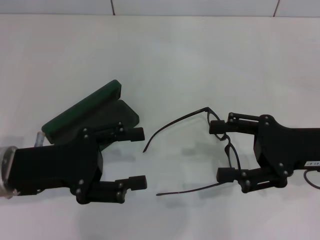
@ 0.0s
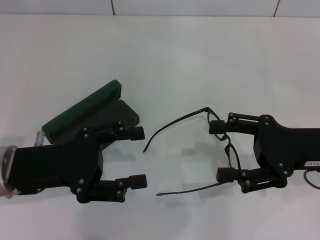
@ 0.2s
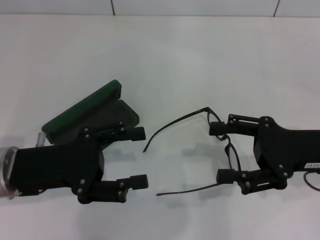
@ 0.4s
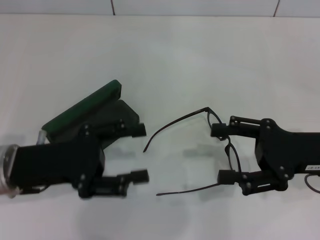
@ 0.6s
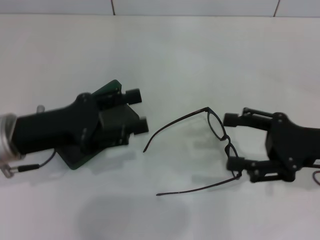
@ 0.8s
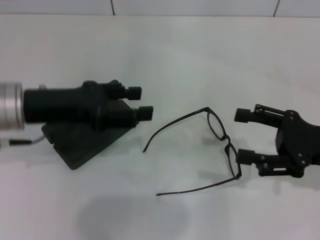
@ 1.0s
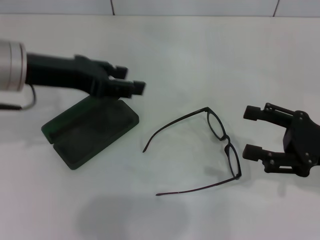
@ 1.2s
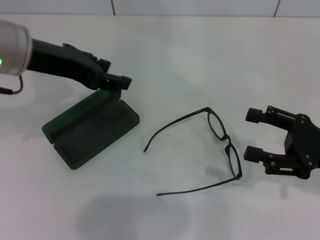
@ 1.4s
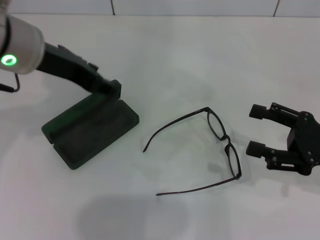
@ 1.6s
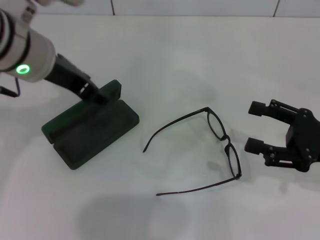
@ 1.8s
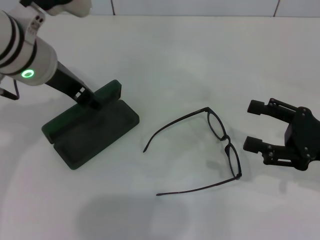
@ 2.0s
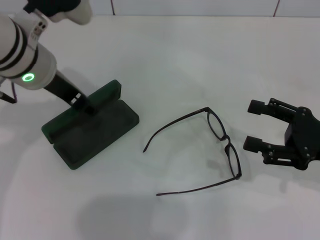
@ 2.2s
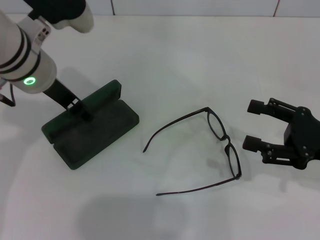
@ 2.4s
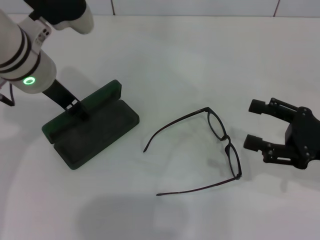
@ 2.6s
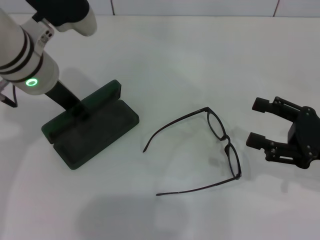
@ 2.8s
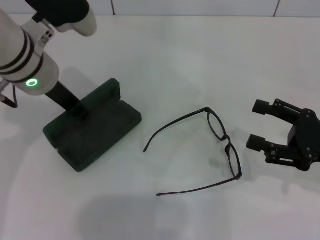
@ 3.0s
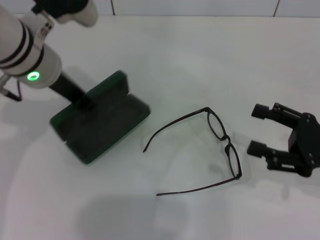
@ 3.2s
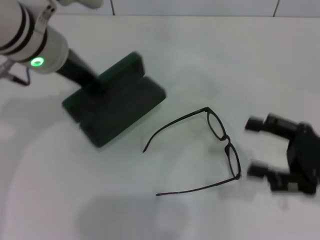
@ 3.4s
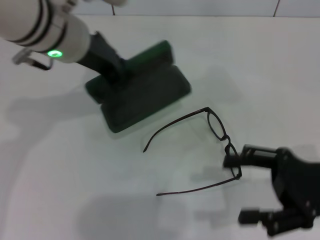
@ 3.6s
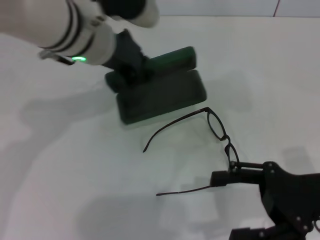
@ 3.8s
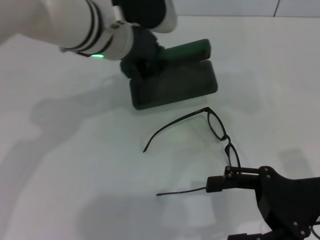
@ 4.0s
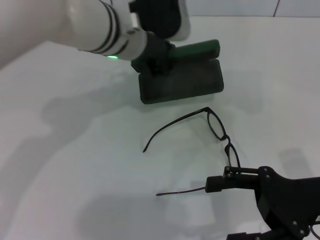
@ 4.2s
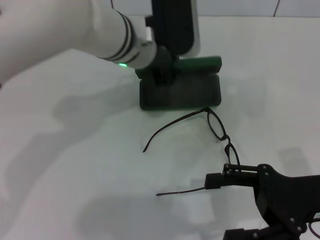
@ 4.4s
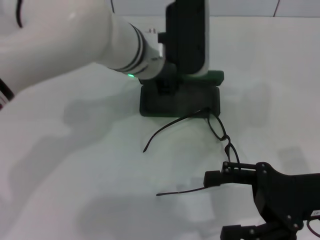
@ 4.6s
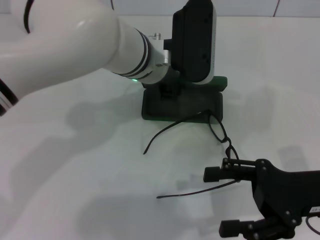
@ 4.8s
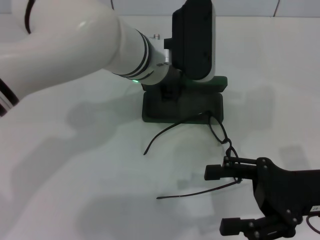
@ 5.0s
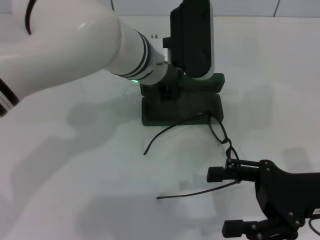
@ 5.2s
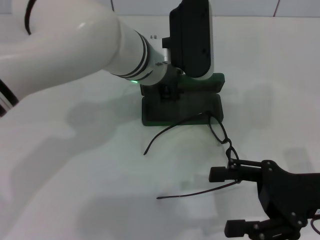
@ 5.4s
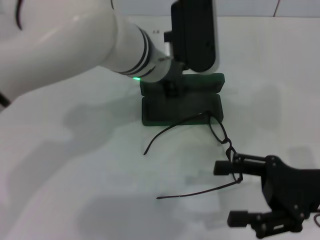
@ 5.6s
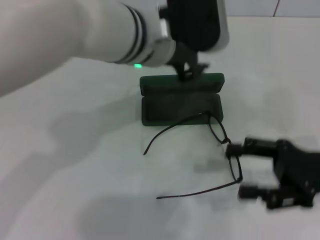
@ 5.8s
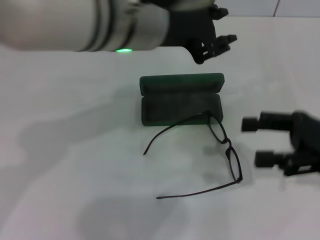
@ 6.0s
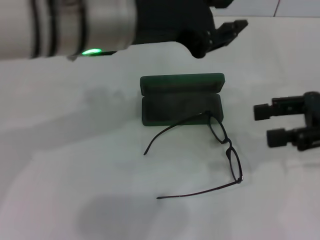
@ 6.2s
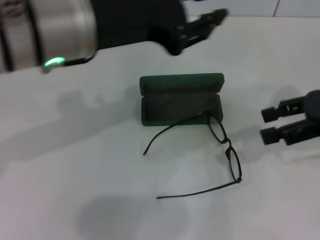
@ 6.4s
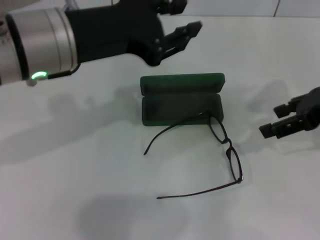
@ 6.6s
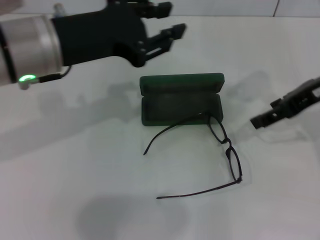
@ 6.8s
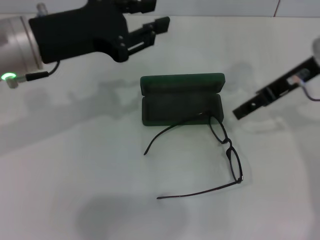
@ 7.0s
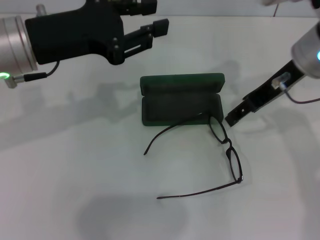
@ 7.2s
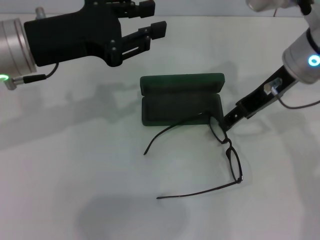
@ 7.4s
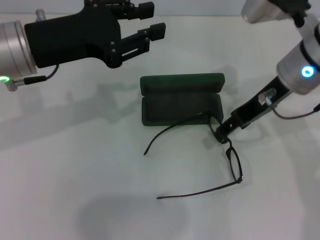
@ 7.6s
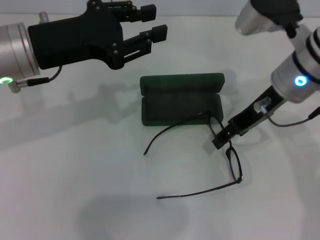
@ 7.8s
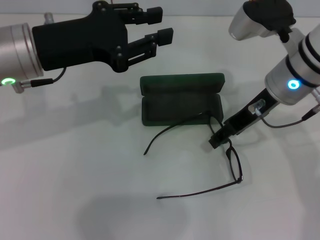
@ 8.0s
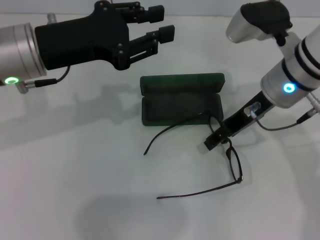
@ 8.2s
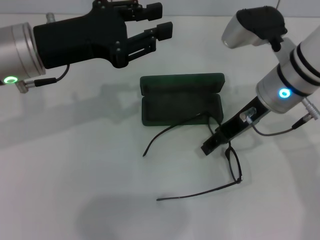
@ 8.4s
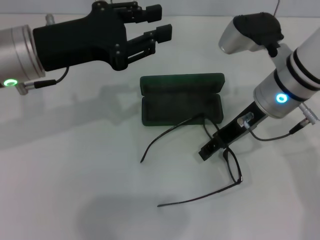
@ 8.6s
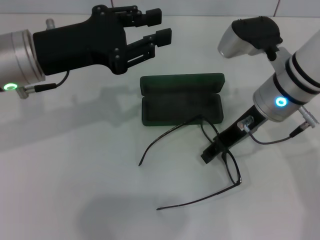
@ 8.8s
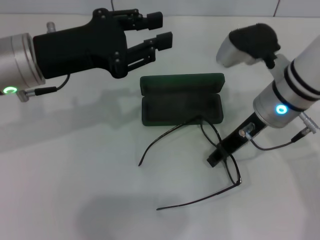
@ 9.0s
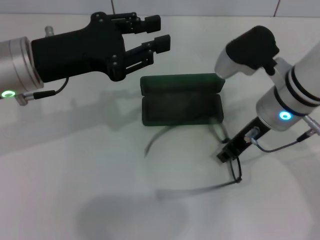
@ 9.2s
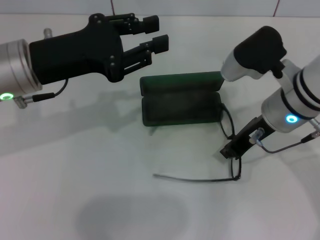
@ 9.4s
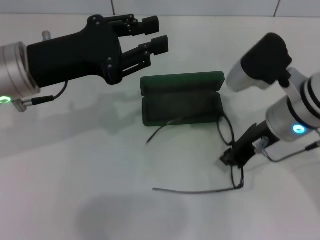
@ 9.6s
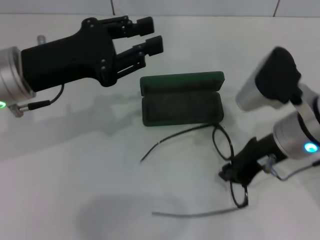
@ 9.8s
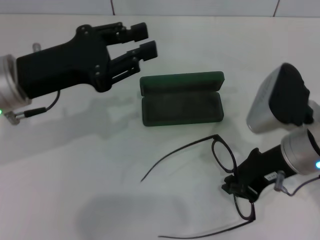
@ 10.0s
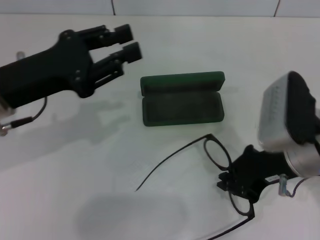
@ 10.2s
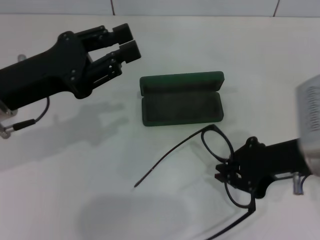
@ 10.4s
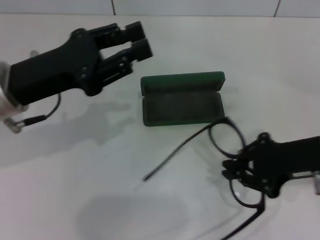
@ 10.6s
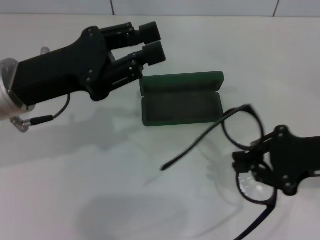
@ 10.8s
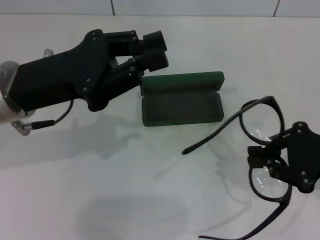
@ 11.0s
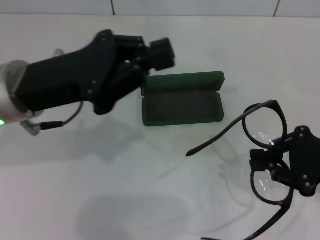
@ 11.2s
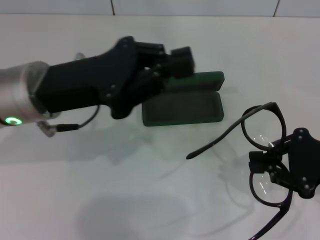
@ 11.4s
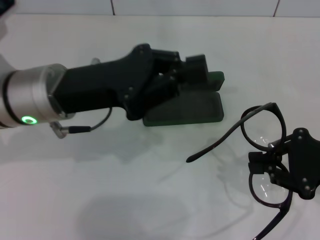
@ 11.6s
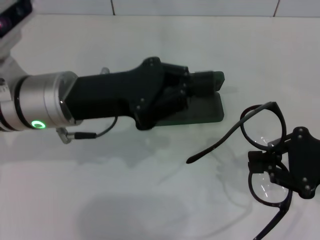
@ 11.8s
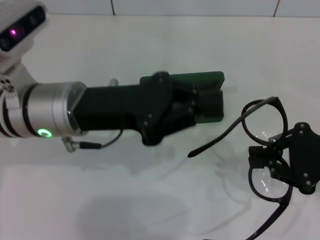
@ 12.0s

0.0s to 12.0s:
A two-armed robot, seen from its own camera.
Step, 0.0s to 2.6s: Grab the glasses case with your left hand.
Step, 2.8s to 5.6s: Place the glasses case in the center of the table with your left hand.
0.0s to 1.6s: The right gripper moves about 5 cm, while the left gripper moves upward, forward and to the right, roughly 20 cm.
1.6s to 3.0s: The left gripper goes approximately 5 cm downward, and closes its fingers.
3.0s to 4.4s: The left gripper goes some 10 cm to the right. The right gripper is displaced to the left by about 5 cm.
4.4s to 6.0s: The right gripper changes place by approximately 10 cm, while the left gripper is displaced upward and backward by some 10 cm.
6.0s to 7.6s: The right gripper is displaced to the left, forward and upward by about 15 cm. The left gripper travels to the left and downward by about 15 cm.
7.6s to 9.0s: The right gripper moves some 5 cm.
9.0s to 10.4s: The right gripper heads backward and to the right, covering approximately 10 cm, and closes its fingers; the left gripper ends up some 5 cm from where it was.
10.4s to 12.0s: Both grippers travel together to the right, roughly 10 cm. The left gripper closes up.

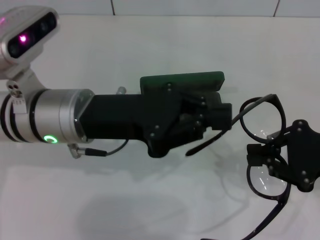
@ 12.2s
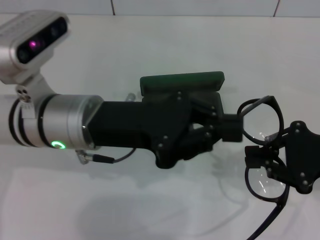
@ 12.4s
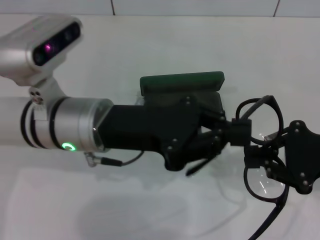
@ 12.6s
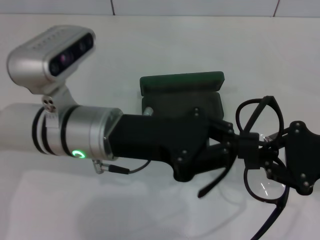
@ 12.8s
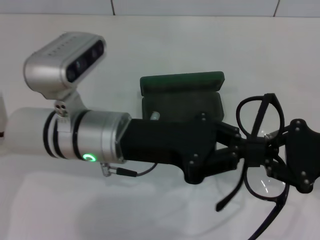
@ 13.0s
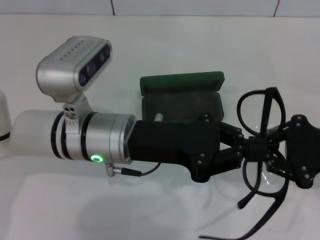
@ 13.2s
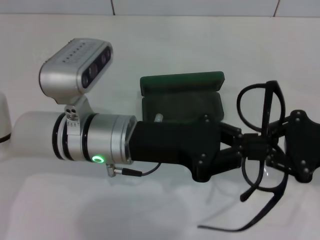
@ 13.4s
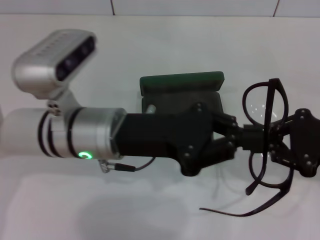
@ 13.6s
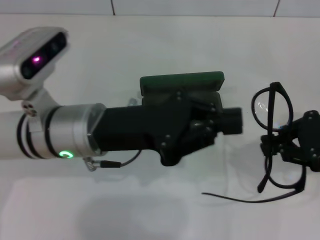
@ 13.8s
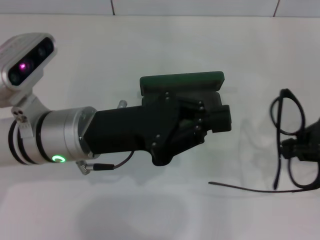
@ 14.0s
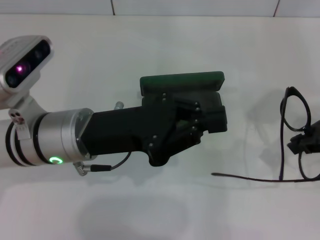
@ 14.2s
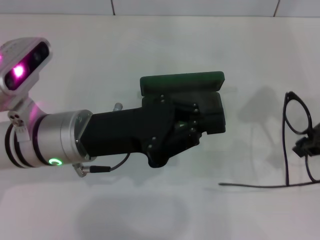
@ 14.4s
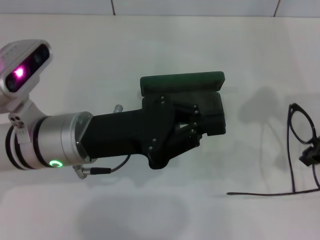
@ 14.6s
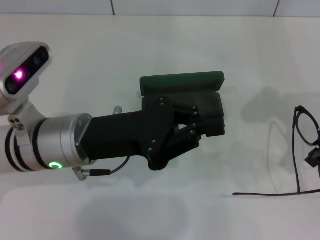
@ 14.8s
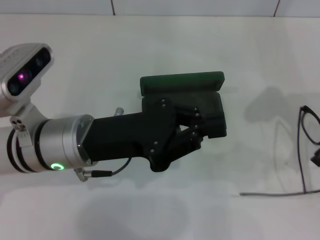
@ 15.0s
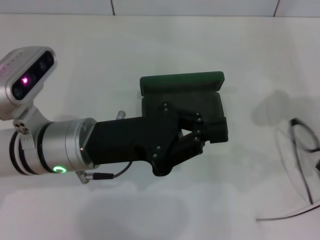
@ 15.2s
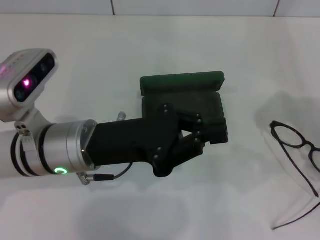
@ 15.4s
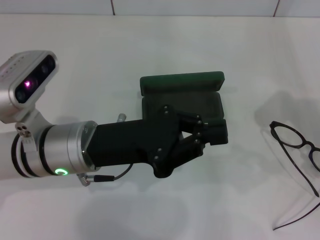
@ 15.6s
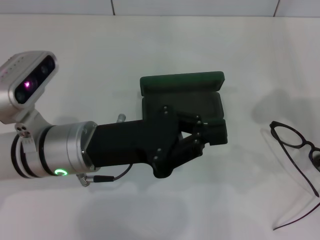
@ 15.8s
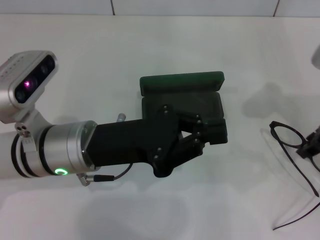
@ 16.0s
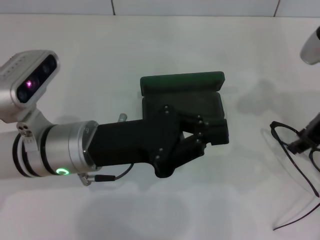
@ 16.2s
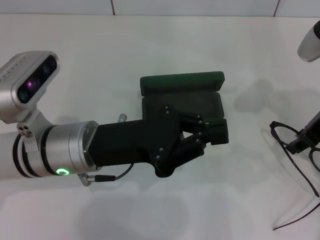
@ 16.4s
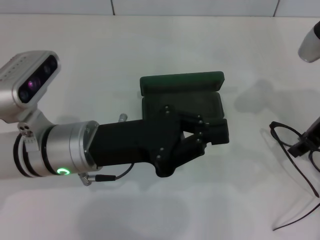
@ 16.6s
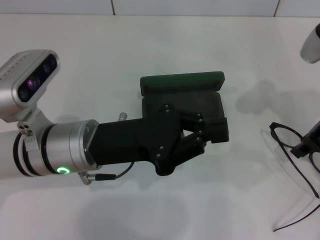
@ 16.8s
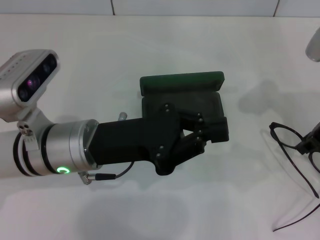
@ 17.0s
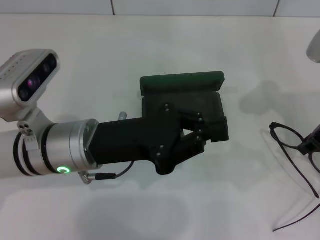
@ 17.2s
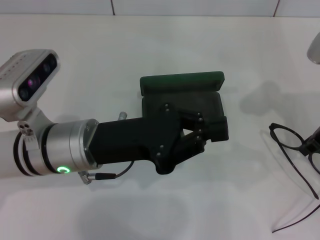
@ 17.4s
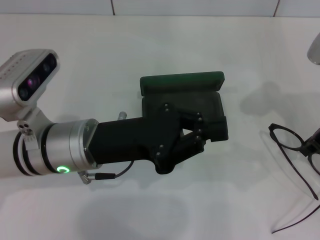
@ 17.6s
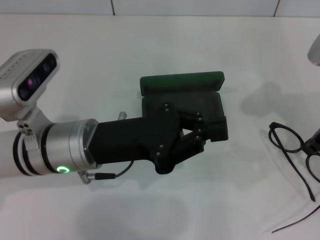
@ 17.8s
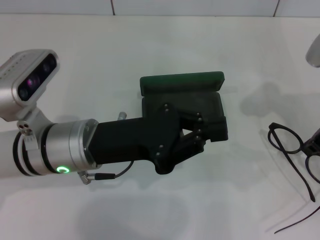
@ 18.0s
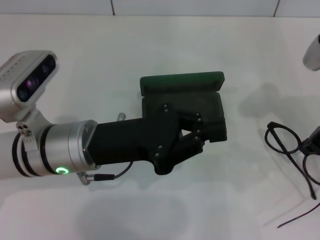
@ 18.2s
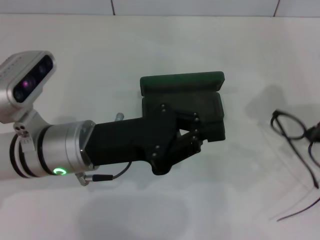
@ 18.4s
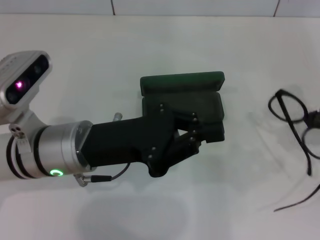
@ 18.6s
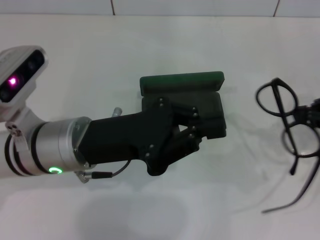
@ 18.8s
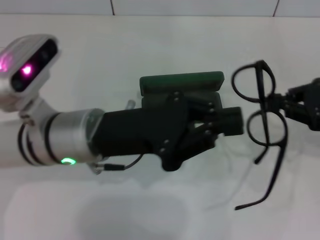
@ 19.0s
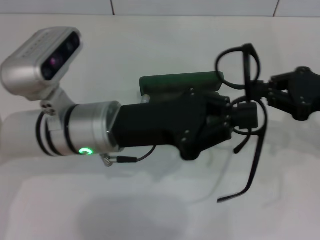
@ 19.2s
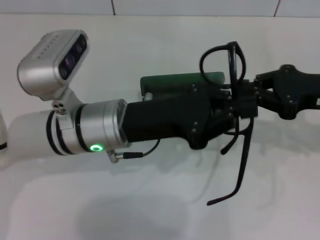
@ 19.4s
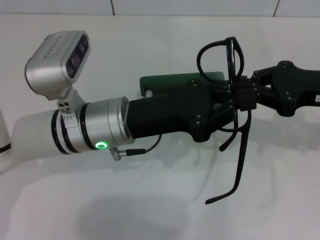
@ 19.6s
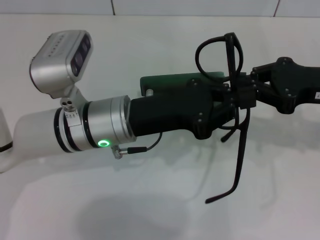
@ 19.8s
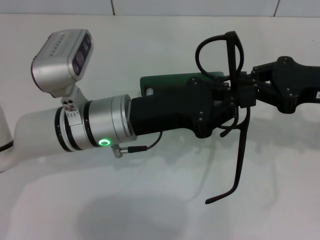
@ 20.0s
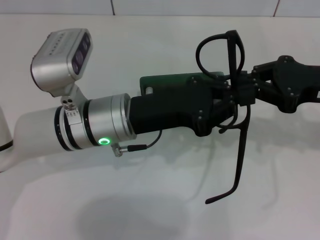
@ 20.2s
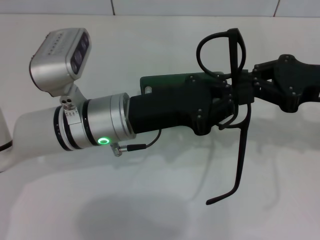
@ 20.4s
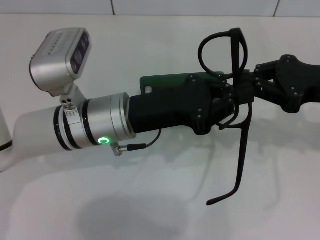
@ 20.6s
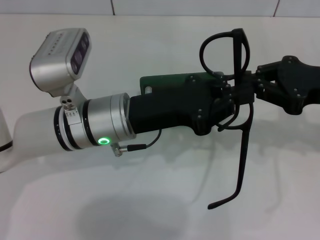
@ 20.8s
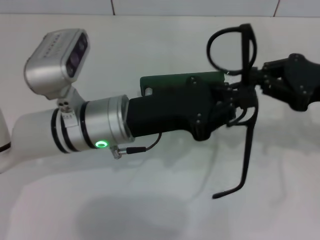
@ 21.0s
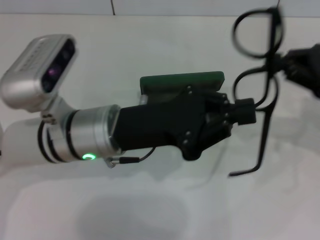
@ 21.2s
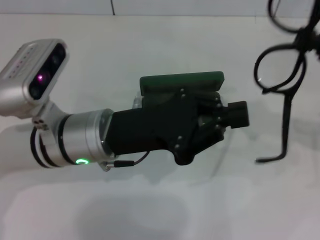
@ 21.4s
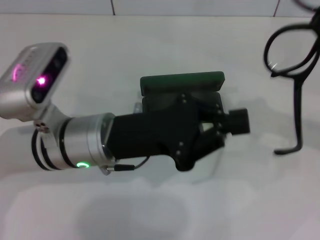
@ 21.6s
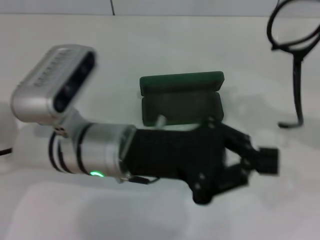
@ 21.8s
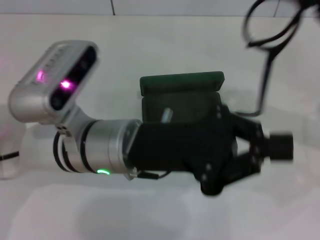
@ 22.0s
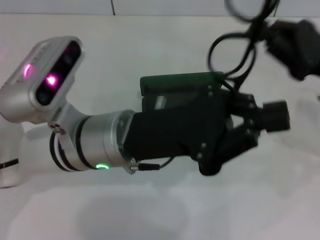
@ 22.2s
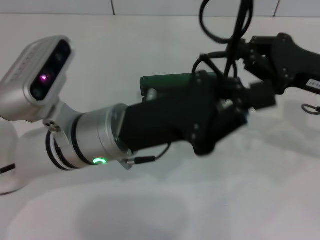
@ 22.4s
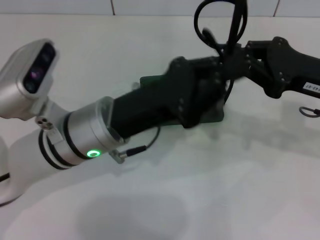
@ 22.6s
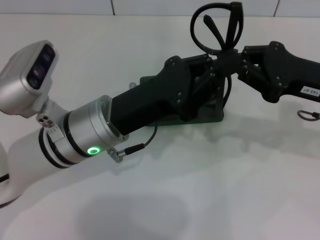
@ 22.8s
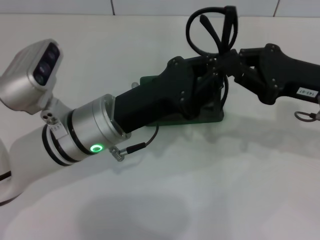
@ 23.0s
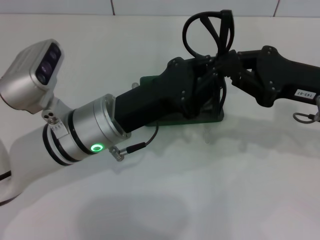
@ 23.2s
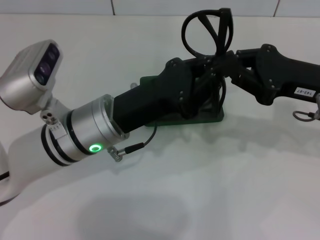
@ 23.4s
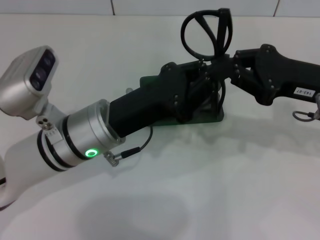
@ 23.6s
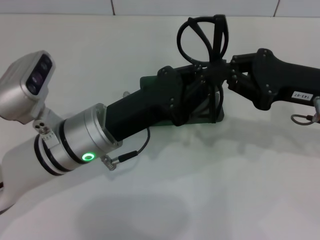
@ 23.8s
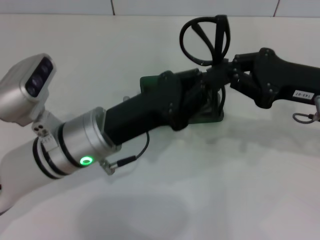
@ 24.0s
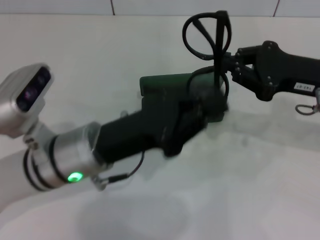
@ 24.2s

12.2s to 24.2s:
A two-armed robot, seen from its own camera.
Step, 12.2s to 17.8s: Grab the eyeglass frame with your right hand.
Step, 18.2s to 23.8s: Fold the frame with your left hand.
13.8s to 15.2s: The right gripper changes place by some 5 cm.
15.2s to 16.6s: There are only small adjustments of the grippers.
16.6s to 18.2s: The right gripper closes.
21.2s to 22.6s: The right gripper goes some 5 cm to the left.
